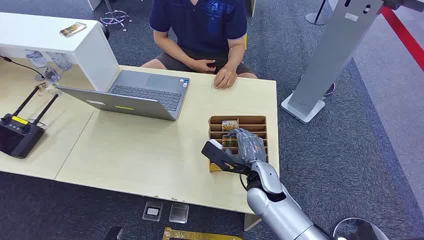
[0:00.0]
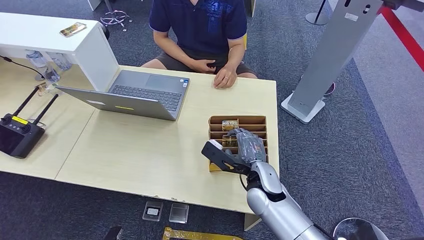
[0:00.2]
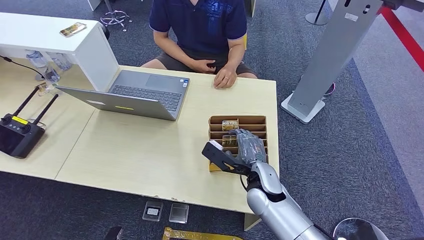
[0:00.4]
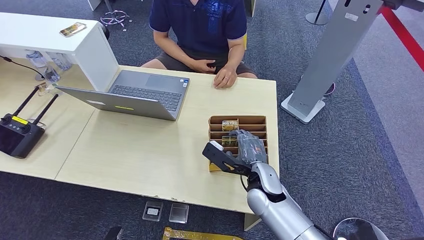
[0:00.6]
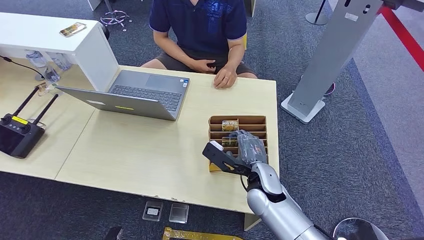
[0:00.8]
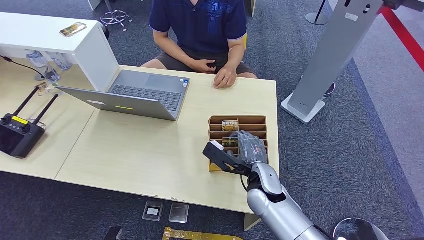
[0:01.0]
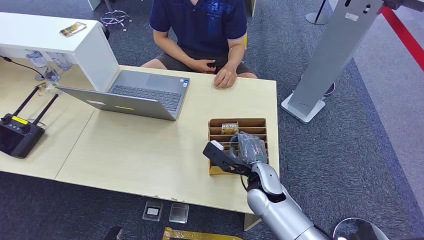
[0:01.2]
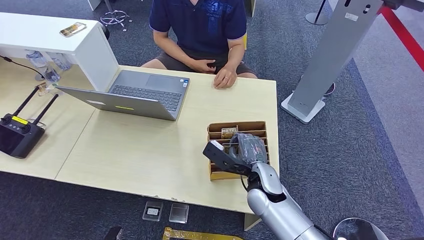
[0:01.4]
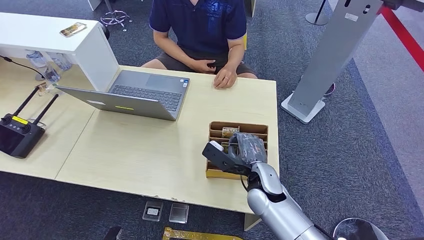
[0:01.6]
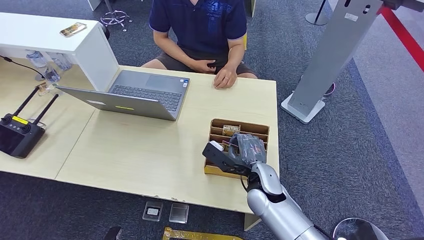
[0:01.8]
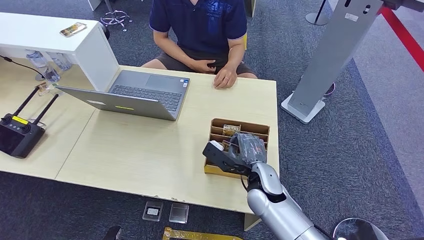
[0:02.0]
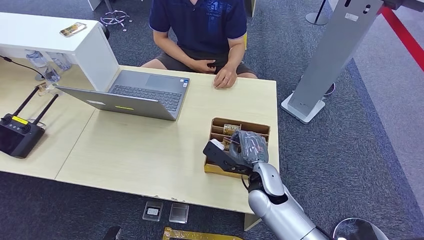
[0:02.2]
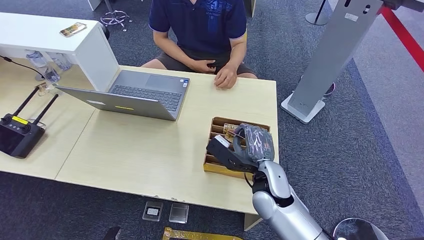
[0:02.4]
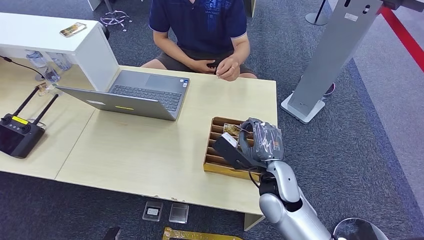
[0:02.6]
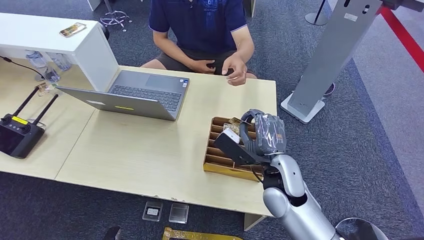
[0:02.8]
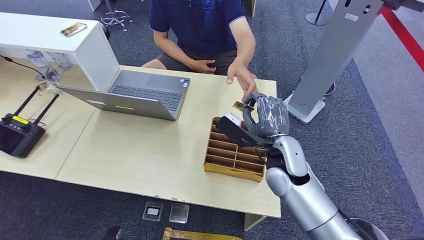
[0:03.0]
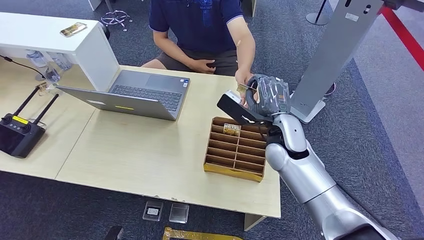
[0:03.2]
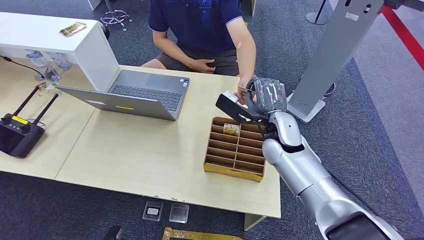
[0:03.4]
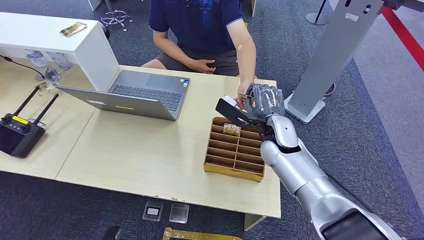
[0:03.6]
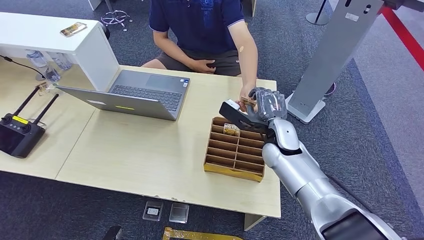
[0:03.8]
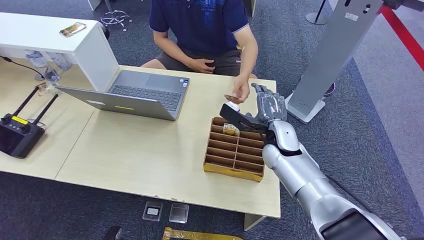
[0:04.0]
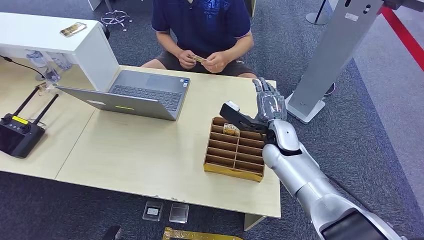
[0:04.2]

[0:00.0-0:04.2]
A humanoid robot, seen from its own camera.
Step, 0:00.0 to 0:02.6: Pick up the key card from the card box.
Step, 0:03.2 to 0:04.0: Hand the key card to the target.
0:01.4 to 0:02.8: The right hand shifts about 5 cm upward.
0:02.8 to 0:04.2: The right hand travels forward by approximately 10 cm.
